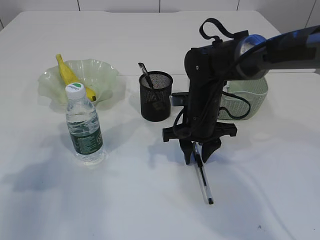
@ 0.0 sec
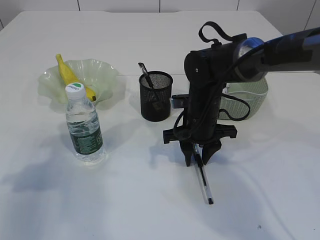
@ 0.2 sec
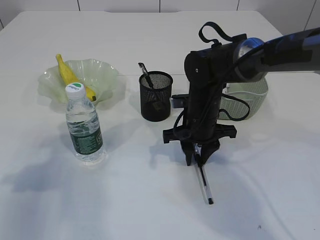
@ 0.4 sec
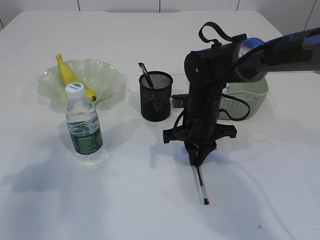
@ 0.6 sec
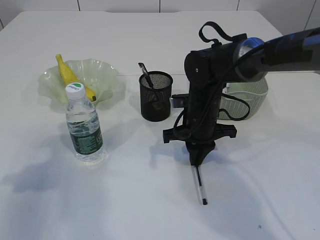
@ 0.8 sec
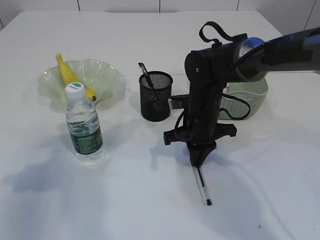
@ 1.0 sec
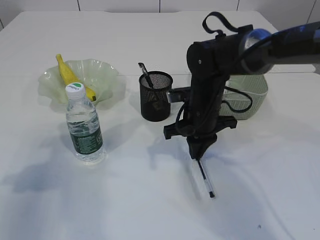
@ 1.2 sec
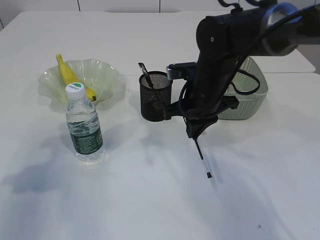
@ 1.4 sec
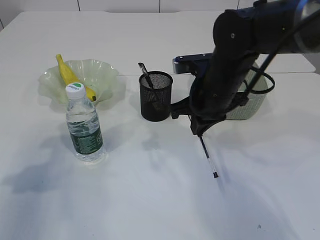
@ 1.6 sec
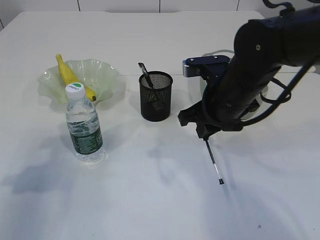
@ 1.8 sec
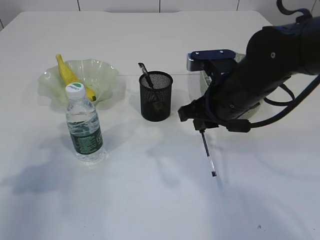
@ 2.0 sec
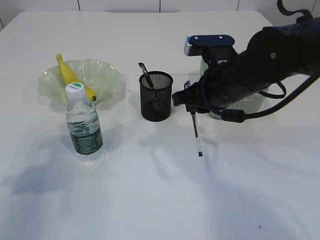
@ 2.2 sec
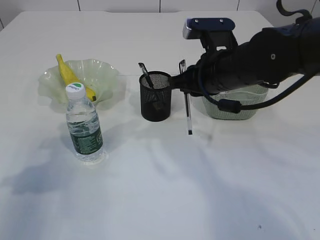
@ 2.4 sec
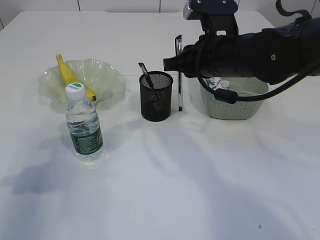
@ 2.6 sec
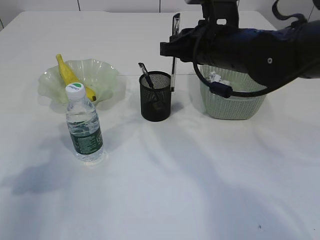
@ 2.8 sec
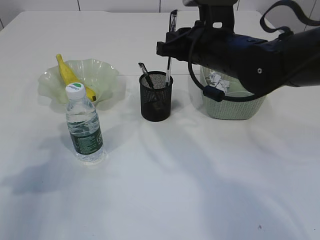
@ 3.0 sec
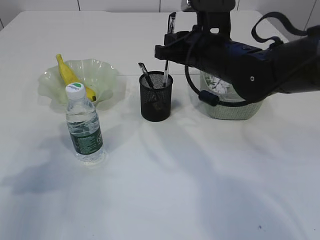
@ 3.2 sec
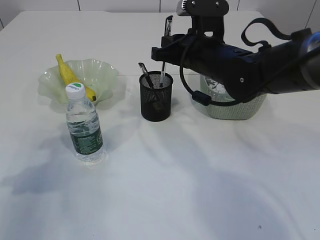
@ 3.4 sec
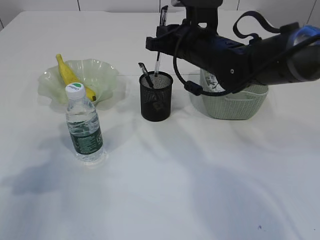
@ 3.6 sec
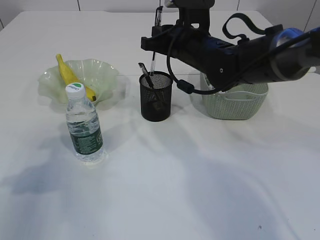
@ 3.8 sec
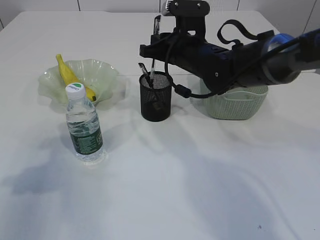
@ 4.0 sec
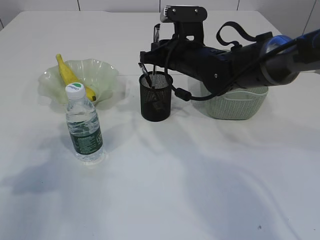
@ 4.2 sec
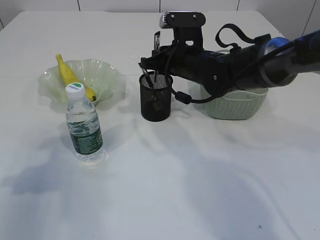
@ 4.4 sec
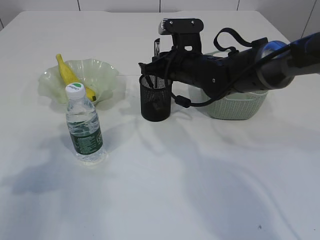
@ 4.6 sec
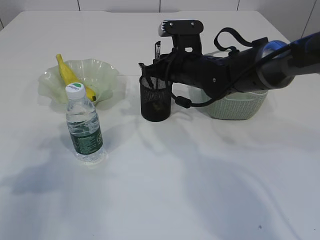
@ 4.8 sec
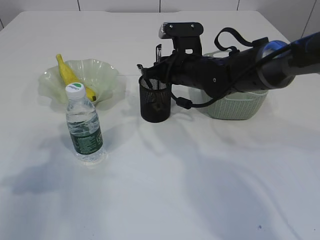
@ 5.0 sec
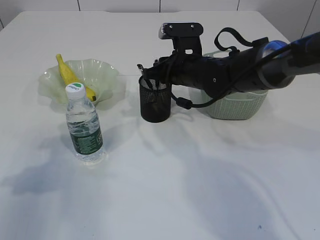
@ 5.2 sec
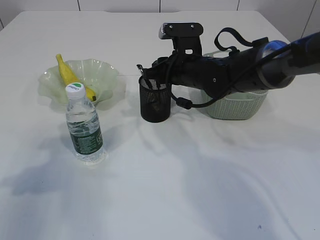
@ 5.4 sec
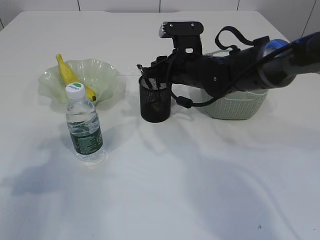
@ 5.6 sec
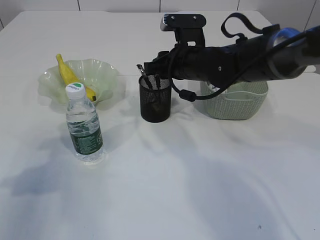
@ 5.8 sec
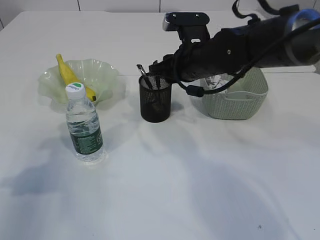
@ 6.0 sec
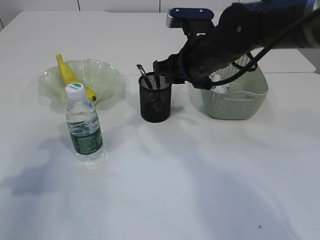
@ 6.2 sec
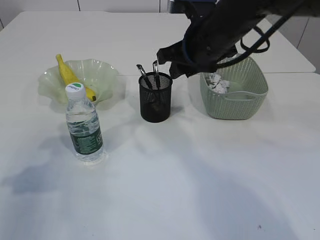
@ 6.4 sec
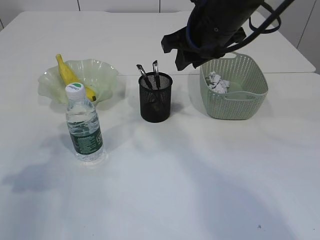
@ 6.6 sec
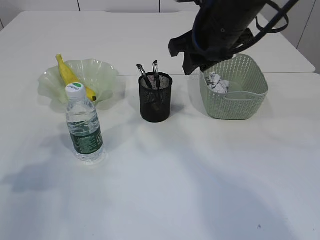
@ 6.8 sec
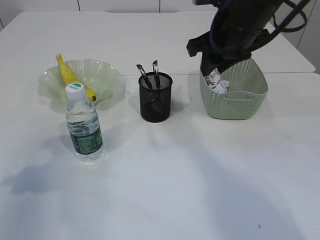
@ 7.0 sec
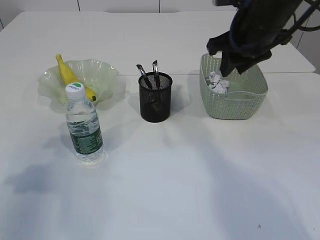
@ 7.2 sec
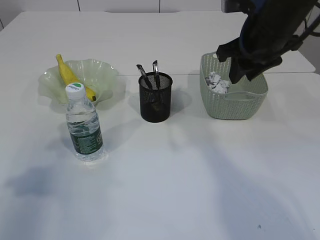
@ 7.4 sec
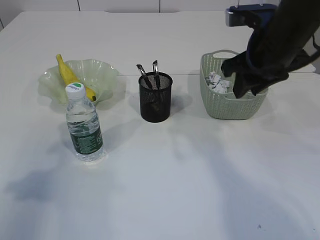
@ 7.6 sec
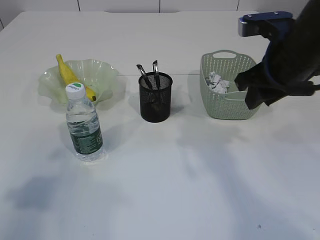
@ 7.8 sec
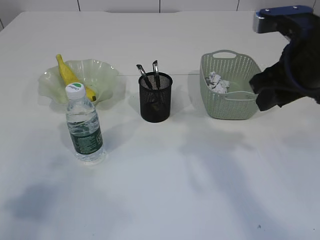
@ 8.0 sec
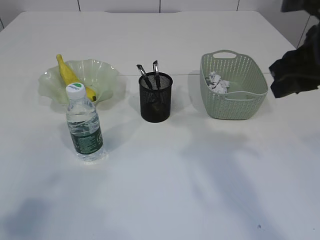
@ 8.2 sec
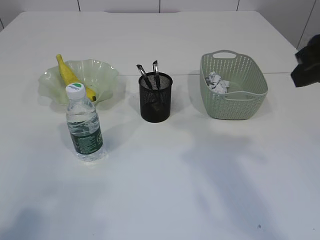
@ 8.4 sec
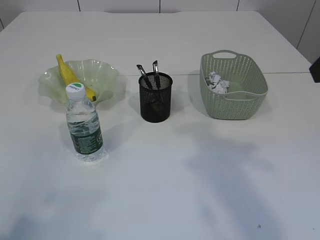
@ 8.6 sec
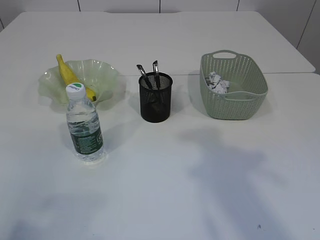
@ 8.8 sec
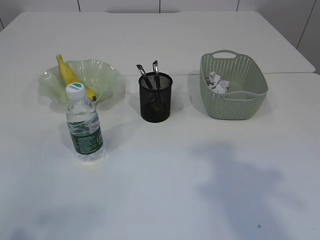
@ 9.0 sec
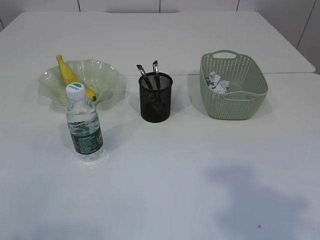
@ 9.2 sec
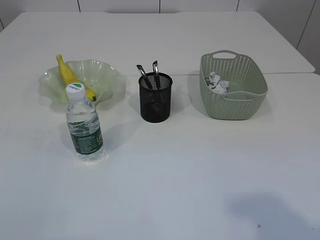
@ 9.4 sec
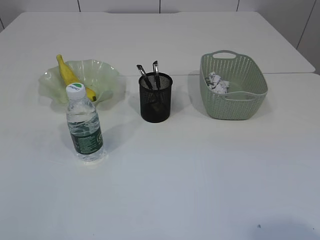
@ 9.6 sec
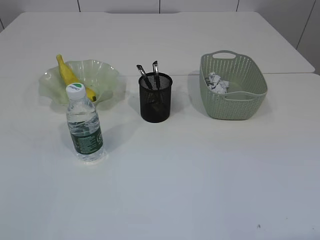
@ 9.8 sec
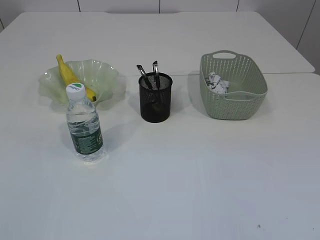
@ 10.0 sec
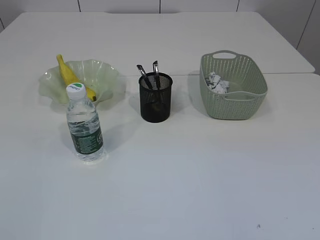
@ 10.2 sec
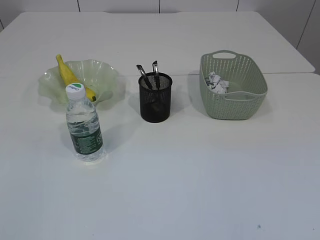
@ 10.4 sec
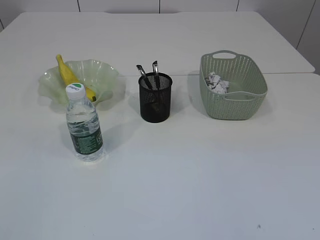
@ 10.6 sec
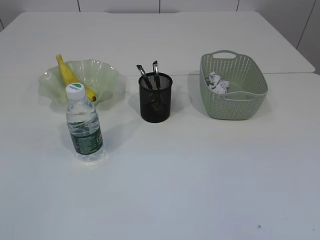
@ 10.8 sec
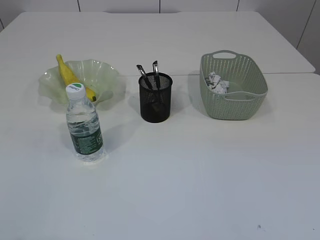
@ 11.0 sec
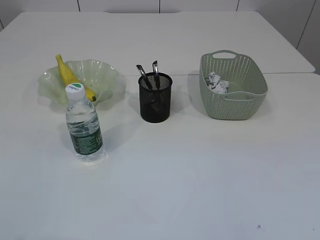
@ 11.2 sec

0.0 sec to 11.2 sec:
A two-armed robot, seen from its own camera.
Step, 0.0 sec to 2.0 sec: Pick up the pen with right arm.
Step, 2.2 sec to 6.2 sec: Place the pen into the pen holder.
0.0 sec to 1.6 sec: The right gripper is displaced upward by approximately 5 cm, and closes its fingers.
3.2 sec to 4.8 sec: The right gripper travels downward and forward by roughly 5 cm.
4.8 sec to 6.4 sec: The right gripper goes roughly 10 cm upward and backward, and opens up.
6.4 sec to 8.0 sec: The left gripper moves backward and upward, about 10 cm. Meanwhile the right gripper heads to the right and backward, covering some 15 cm.
8.0 sec to 9.6 sec: The right gripper heads backward, covering approximately 25 cm. The left gripper moves backward, roughly 15 cm.

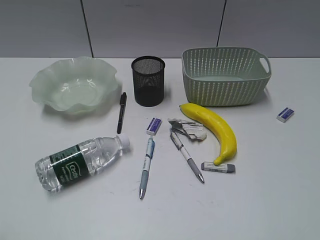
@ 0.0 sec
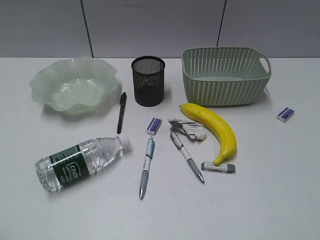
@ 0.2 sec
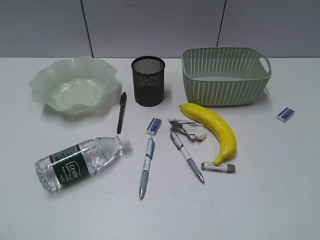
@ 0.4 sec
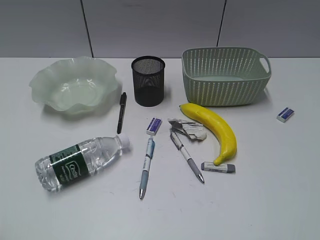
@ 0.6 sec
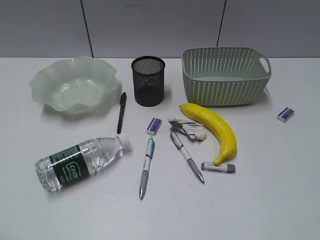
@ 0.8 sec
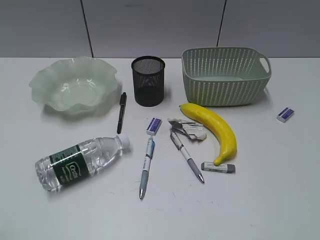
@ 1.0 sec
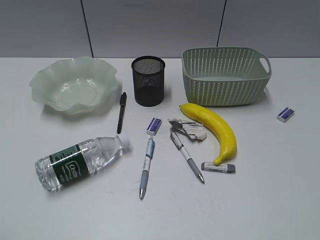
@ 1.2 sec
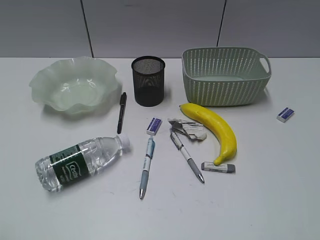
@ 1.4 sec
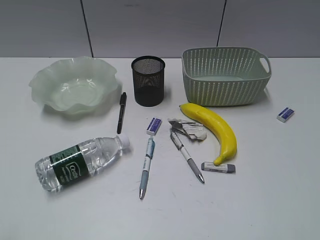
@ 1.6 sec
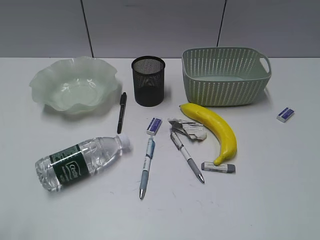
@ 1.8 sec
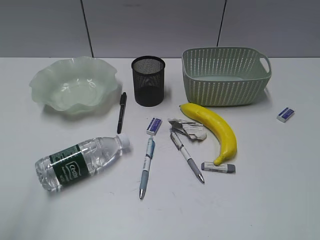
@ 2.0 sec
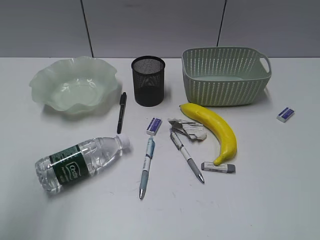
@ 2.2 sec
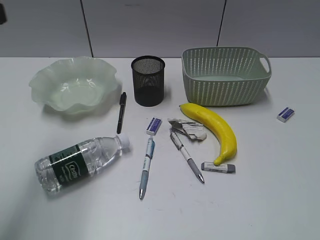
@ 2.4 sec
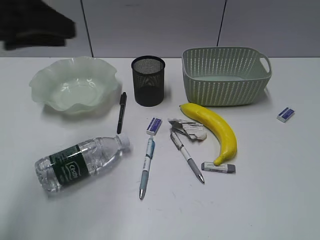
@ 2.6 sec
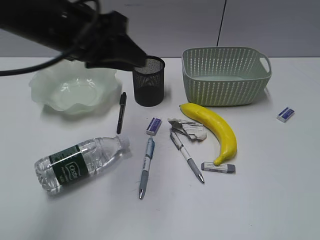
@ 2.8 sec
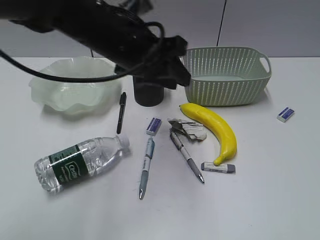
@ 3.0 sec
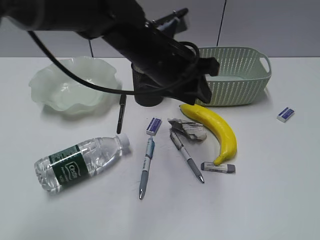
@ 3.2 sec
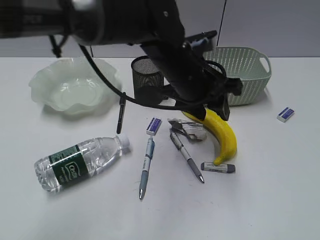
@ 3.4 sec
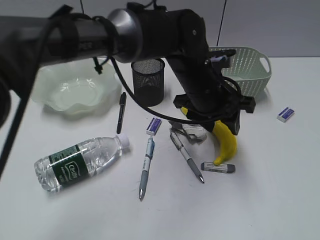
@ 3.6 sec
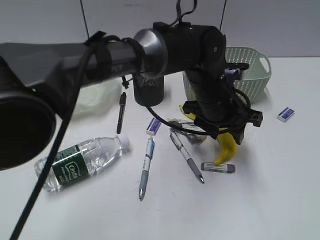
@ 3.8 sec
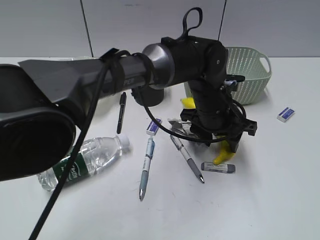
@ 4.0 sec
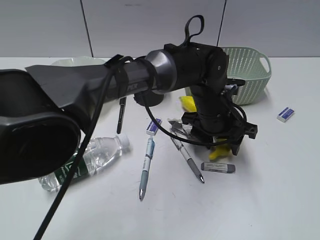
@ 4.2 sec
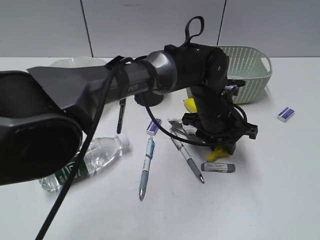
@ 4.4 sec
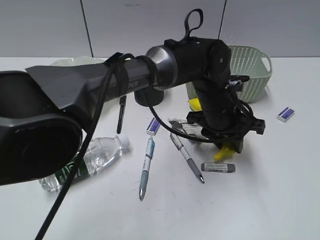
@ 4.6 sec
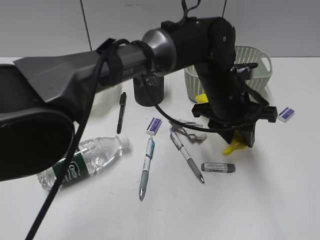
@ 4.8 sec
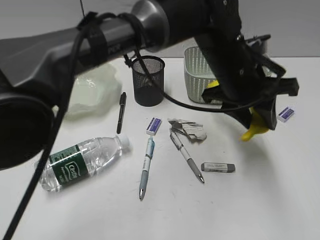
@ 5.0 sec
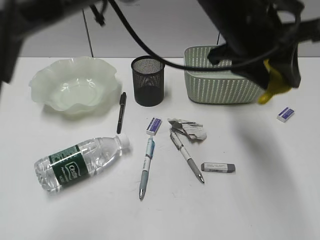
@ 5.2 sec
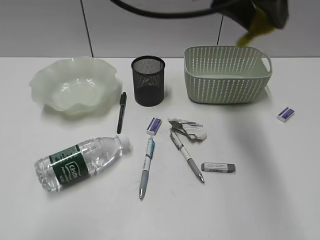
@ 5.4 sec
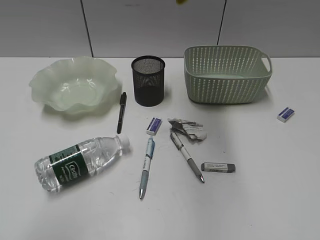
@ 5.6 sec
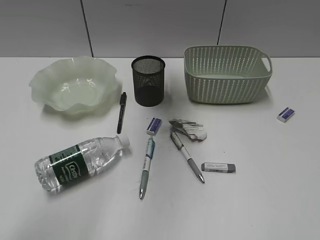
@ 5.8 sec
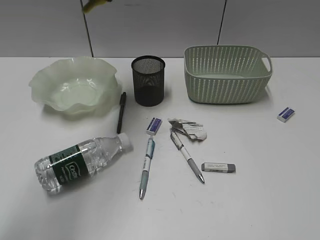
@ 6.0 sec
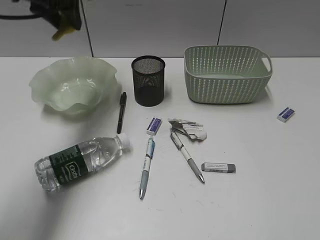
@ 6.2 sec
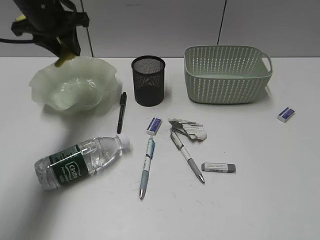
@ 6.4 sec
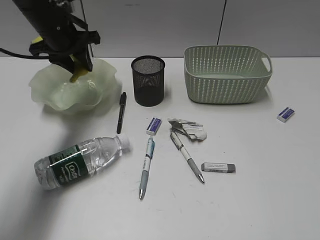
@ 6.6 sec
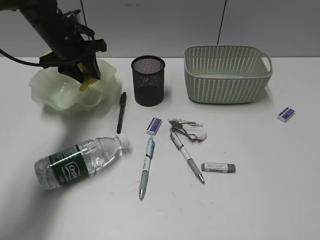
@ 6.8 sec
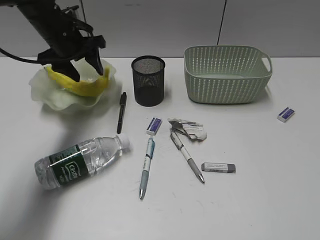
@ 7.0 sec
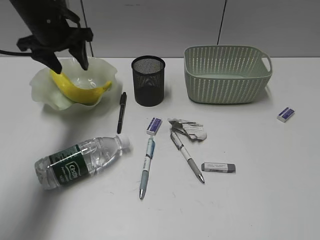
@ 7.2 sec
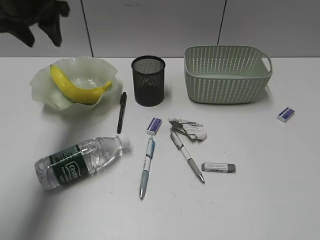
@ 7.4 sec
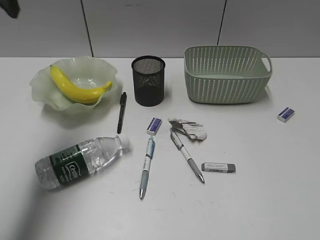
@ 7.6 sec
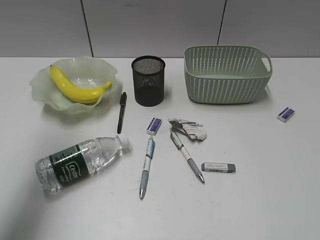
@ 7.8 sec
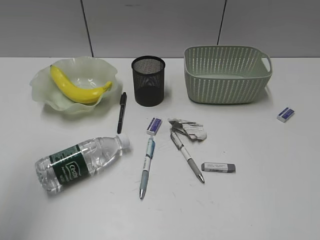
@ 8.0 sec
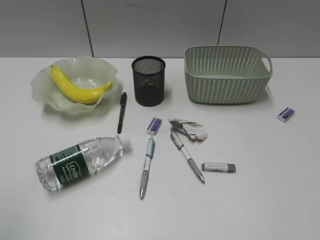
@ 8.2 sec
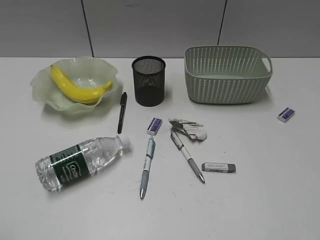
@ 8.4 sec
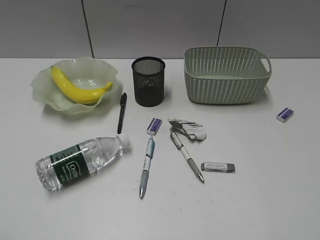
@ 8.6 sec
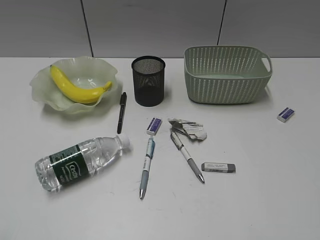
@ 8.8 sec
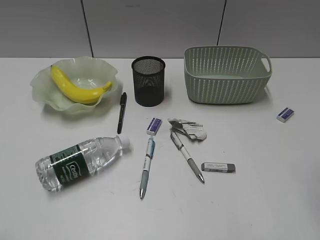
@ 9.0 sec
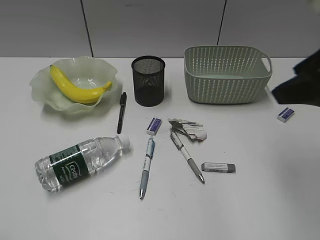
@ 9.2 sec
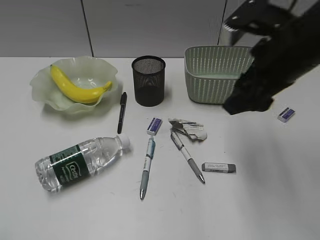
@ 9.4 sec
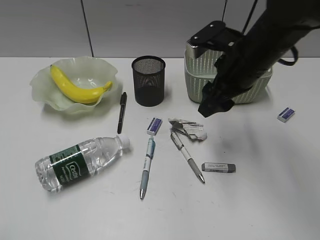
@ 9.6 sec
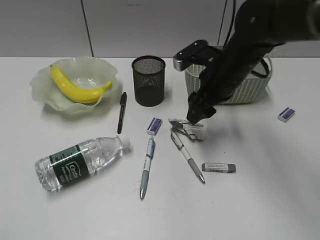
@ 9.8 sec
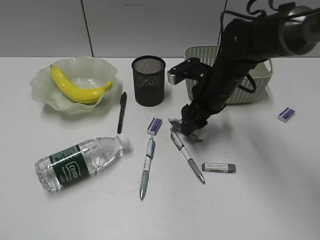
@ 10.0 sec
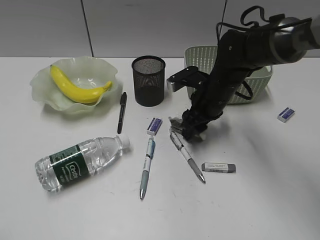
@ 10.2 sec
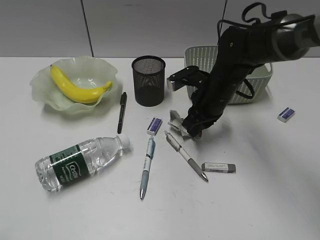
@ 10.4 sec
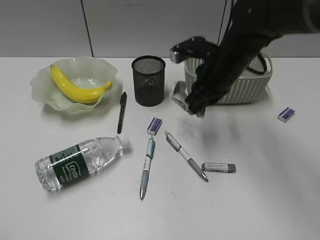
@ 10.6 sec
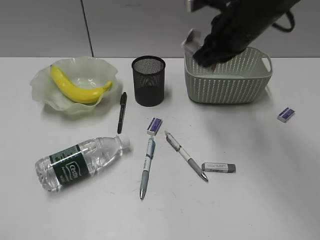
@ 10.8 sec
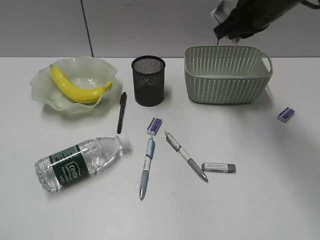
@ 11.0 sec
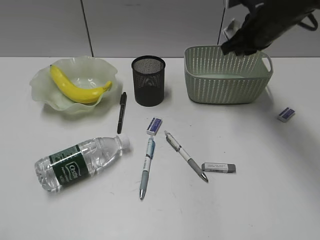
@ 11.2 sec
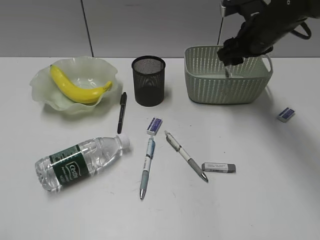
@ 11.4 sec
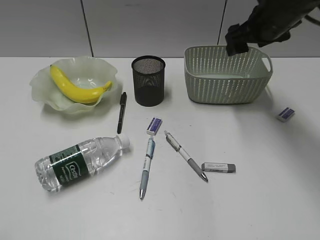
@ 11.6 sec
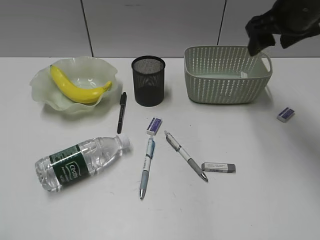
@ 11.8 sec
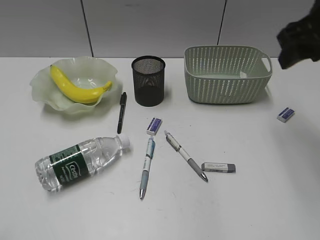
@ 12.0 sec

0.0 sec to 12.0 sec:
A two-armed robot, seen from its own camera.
Step, 1.4 sec to 4.4 sec: Grasp the banana with left gripper.
Step, 4.6 sec to 7.0 sec: Place the banana in the plate with left gripper.
Step, 7.2 sec to 10.4 sec: Grasp the waste paper with right gripper.
Step, 10.6 sec to 11.4 sec: Place the waste paper in the basket with right gripper.
1.6 sec to 3.0 sec: The left gripper is displaced forward and to the right by approximately 40 cm.
3.0 sec to 4.4 sec: The left gripper heads to the right and downward, covering approximately 20 cm, and opens and closes again.
4.4 sec to 6.0 sec: The left gripper shifts some 35 cm upward and to the left.
6.0 sec to 7.6 sec: The left gripper travels to the left and backward by some 15 cm, and reaches some 15 cm downward, then returns.
7.6 sec to 9.0 sec: The left gripper heads backward, covering about 35 cm.
9.0 sec to 10.4 sec: The right gripper moves forward, downward and to the left, roughly 35 cm, and closes up.
10.4 sec to 12.0 sec: The right gripper goes up and down, about 20 cm each way, reversing 2 times, and opens.
